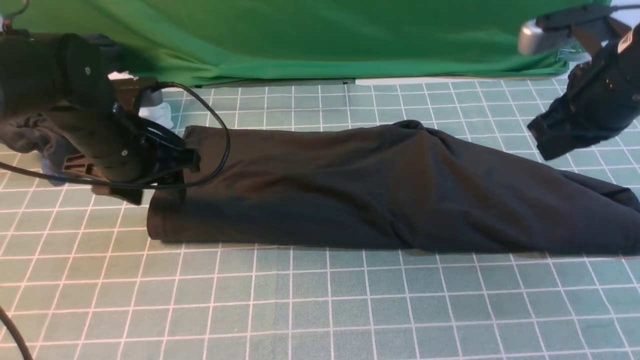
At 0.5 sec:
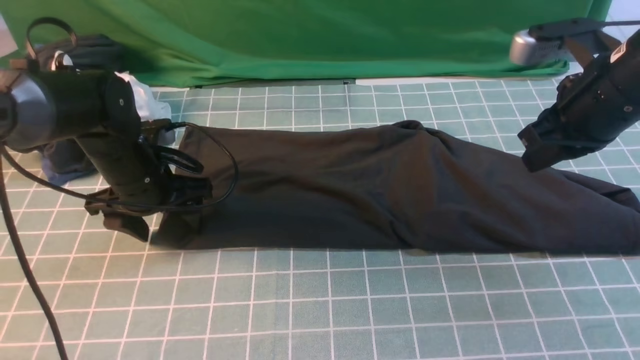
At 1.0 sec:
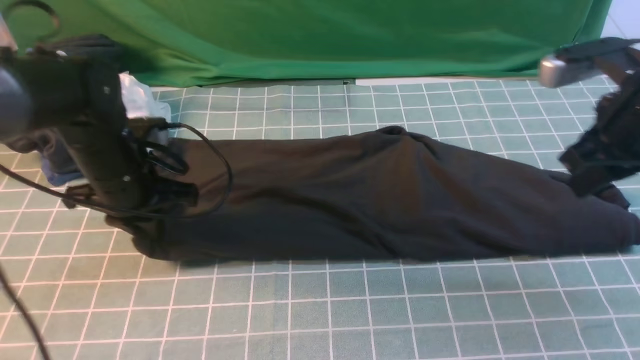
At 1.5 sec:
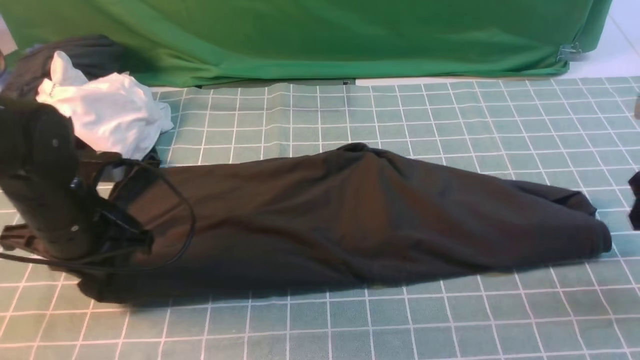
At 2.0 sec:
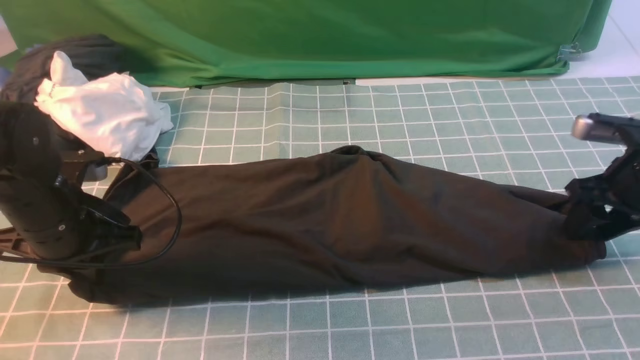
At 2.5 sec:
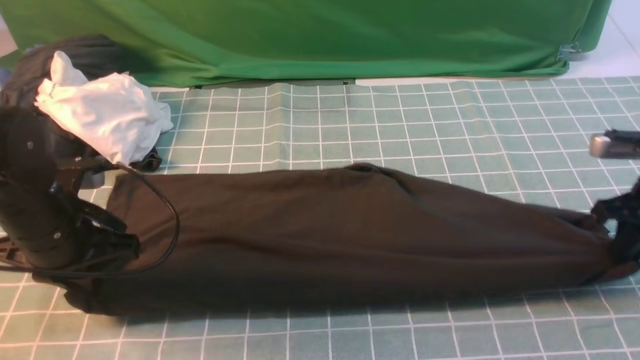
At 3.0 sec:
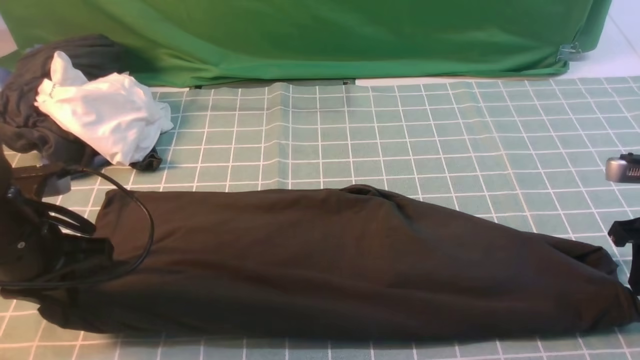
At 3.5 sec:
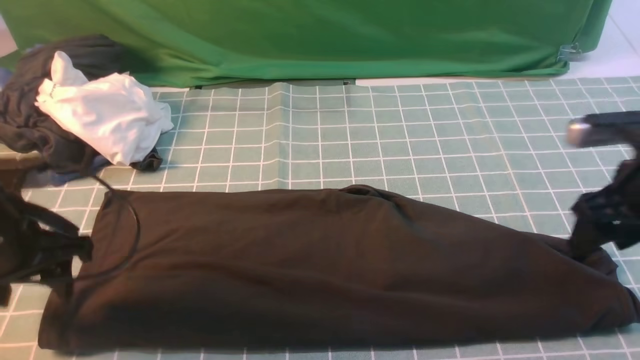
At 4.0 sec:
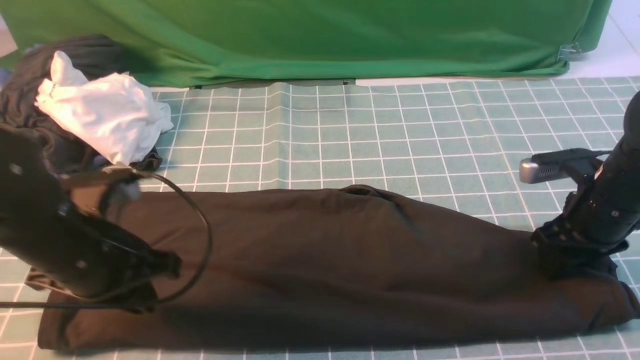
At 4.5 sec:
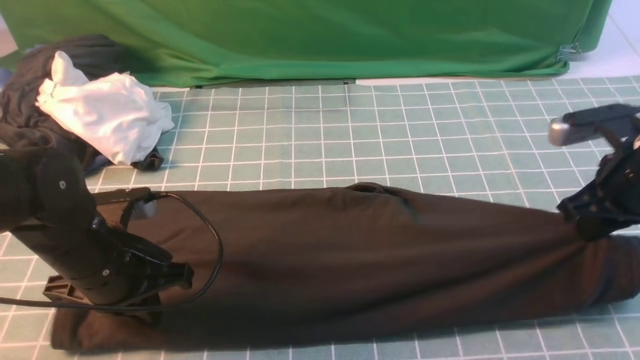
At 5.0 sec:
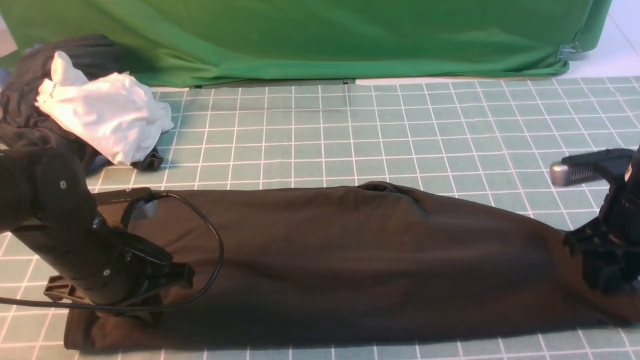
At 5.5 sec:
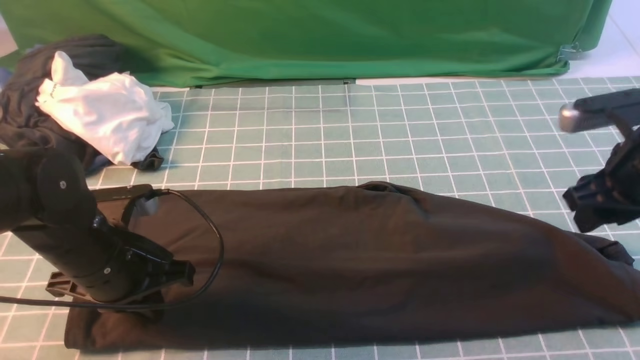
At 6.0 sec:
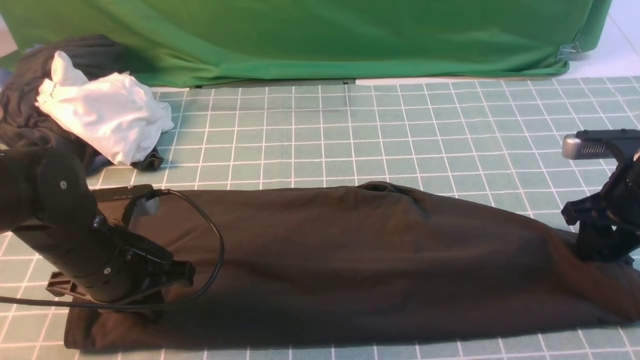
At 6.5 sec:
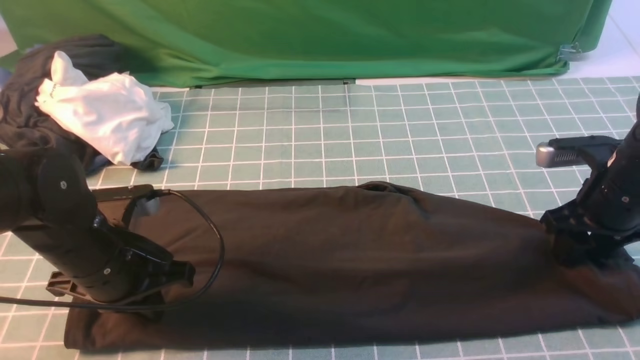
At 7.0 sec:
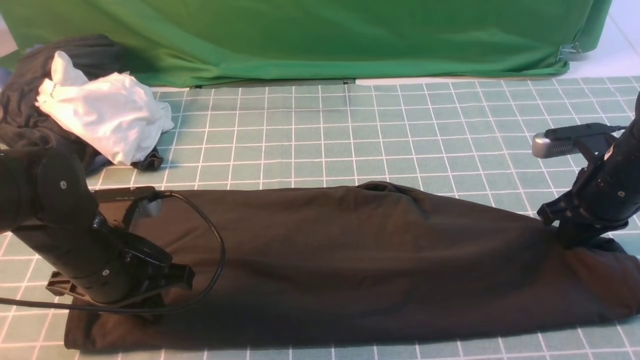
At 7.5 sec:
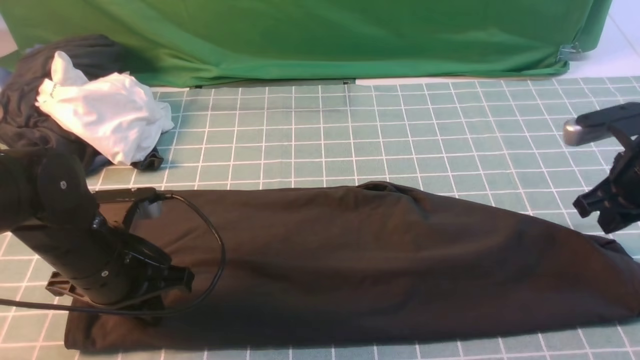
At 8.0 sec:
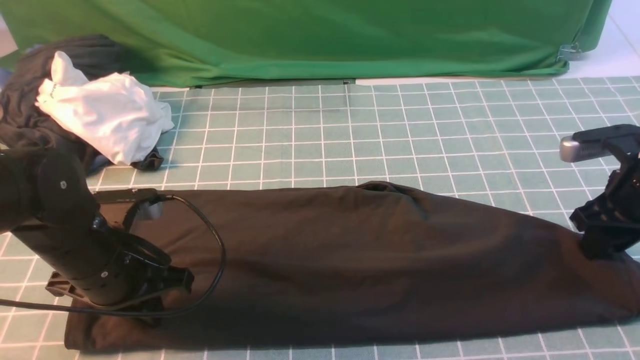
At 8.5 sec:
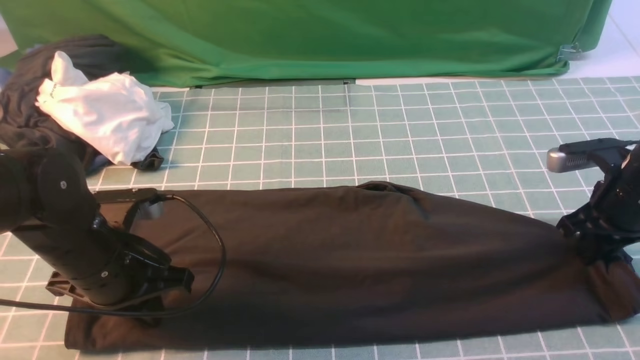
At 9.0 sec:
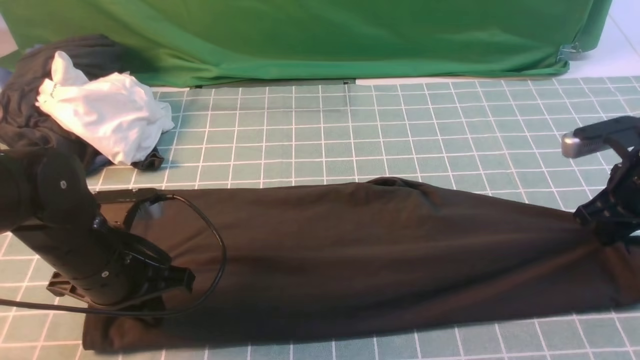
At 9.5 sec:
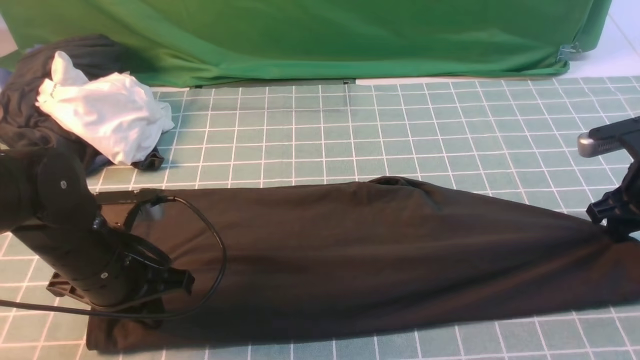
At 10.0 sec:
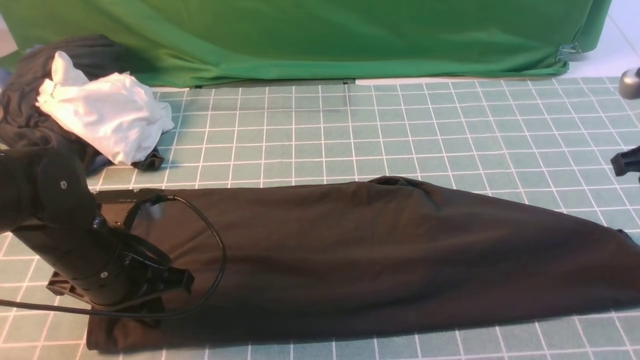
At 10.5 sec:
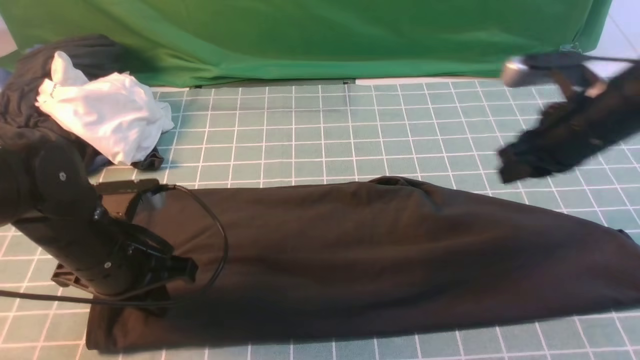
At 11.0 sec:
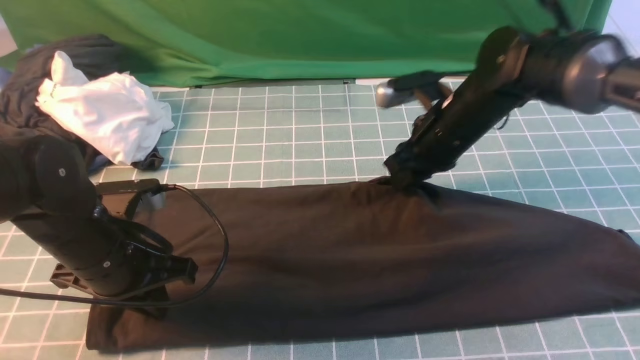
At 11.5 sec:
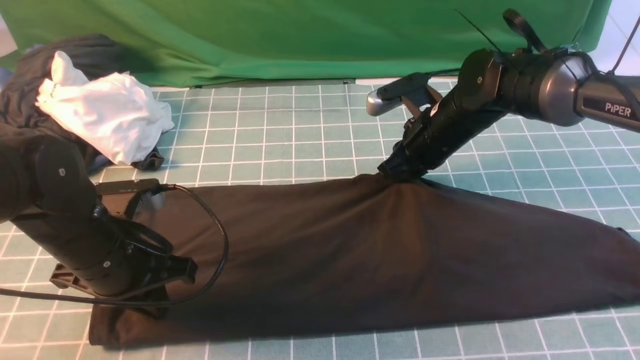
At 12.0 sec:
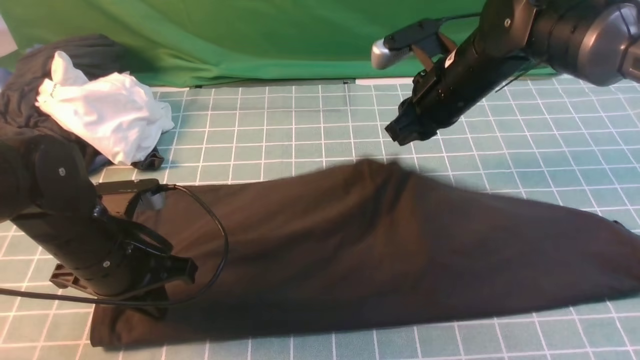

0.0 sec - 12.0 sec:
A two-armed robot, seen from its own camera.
0.0 sec - 2.0 sec: The left gripper is displaced backward by some 10 cm, and closes up. Meanwhile the right gripper travels downward and to the right by about 15 cm, and opens up.
2.0 sec - 4.0 sec: The left gripper changes place by some 5 cm, and opens and closes again. Meanwhile the right gripper is displaced to the left by some 5 cm, and closes and opens again.
4.0 sec - 6.0 sec: The right gripper closes, then opens again.
6.0 sec - 8.0 sec: The right gripper closes and opens again.
8.0 sec - 10.0 sec: The right gripper goes approximately 5 cm upward, and closes.
10.0 sec - 12.0 sec: The right gripper travels to the left and forward by some 25 cm.

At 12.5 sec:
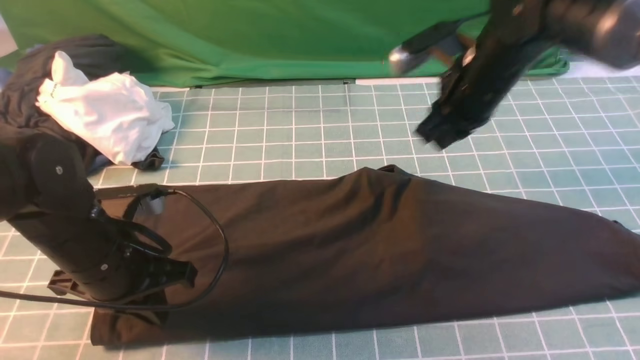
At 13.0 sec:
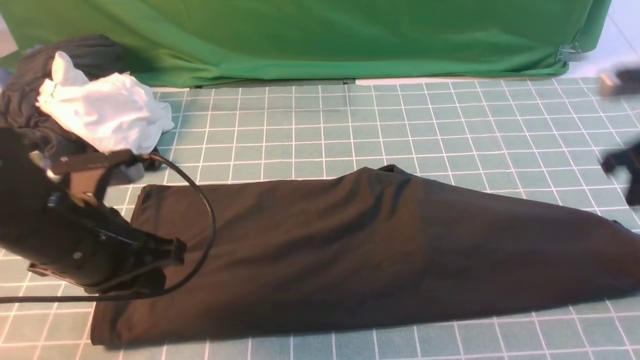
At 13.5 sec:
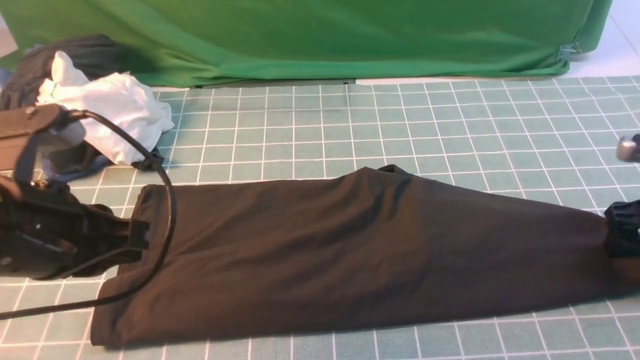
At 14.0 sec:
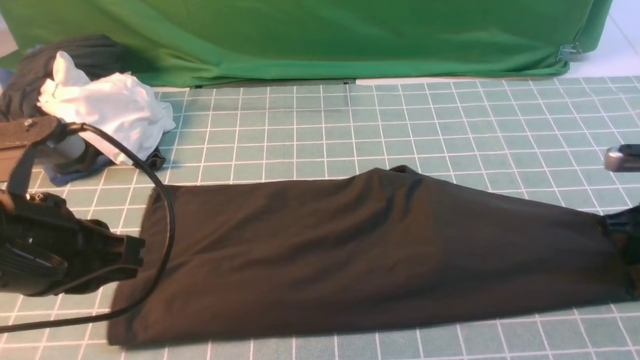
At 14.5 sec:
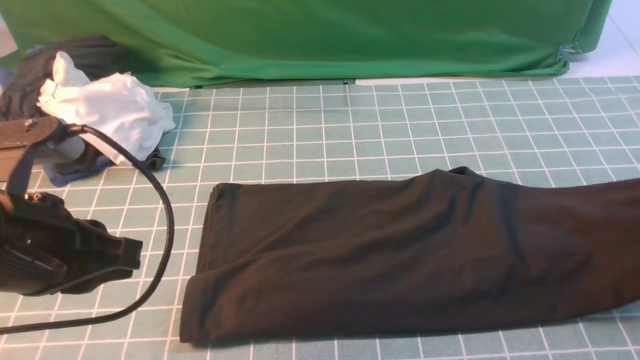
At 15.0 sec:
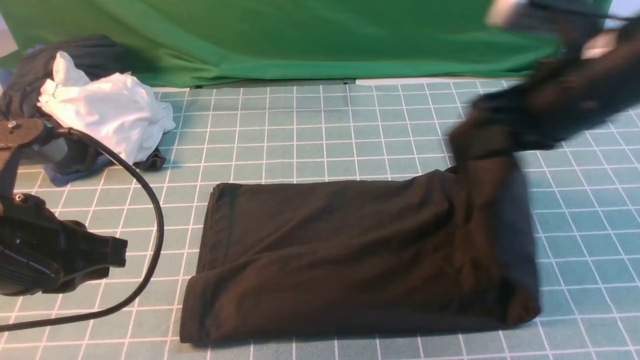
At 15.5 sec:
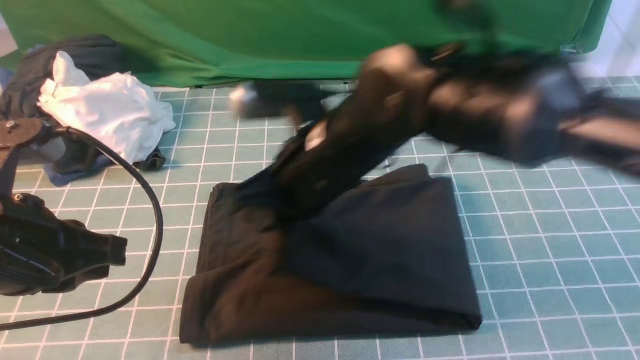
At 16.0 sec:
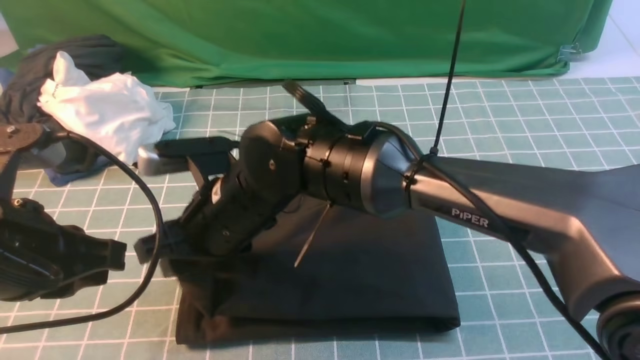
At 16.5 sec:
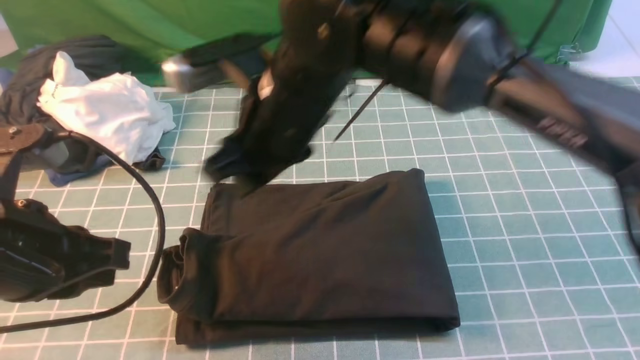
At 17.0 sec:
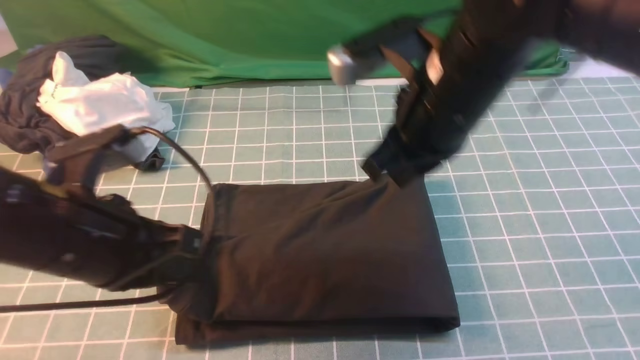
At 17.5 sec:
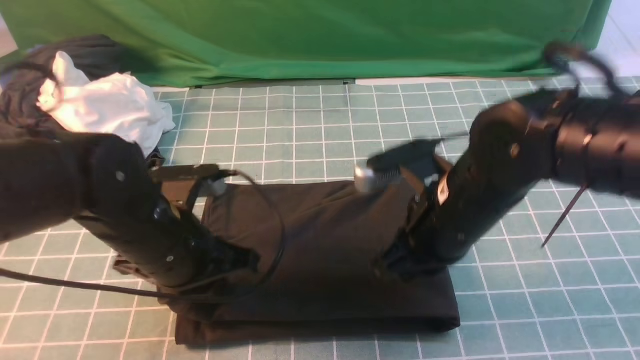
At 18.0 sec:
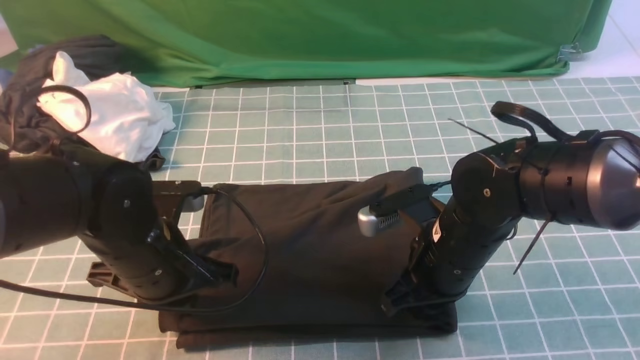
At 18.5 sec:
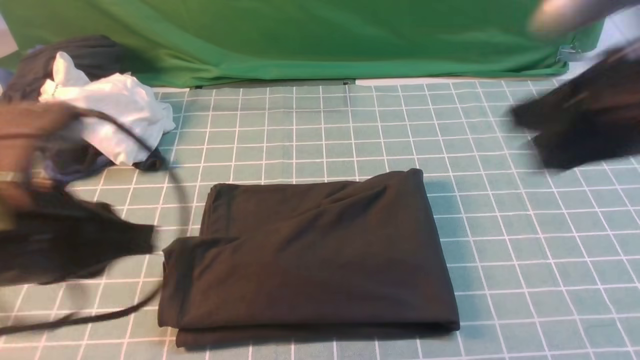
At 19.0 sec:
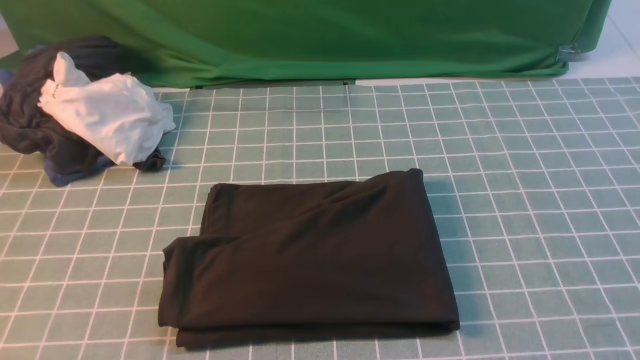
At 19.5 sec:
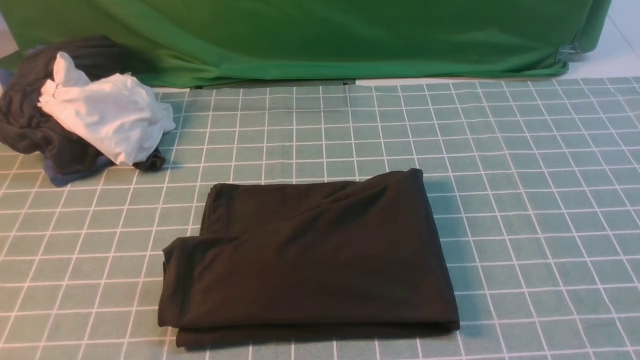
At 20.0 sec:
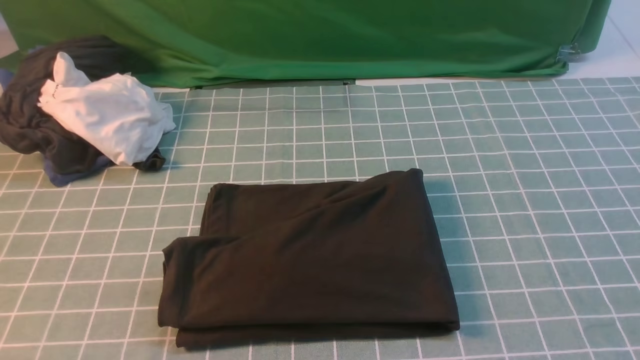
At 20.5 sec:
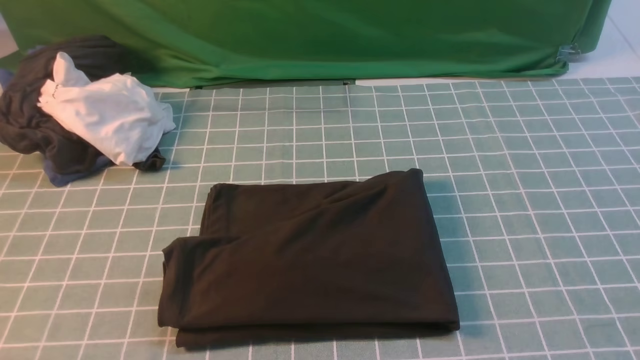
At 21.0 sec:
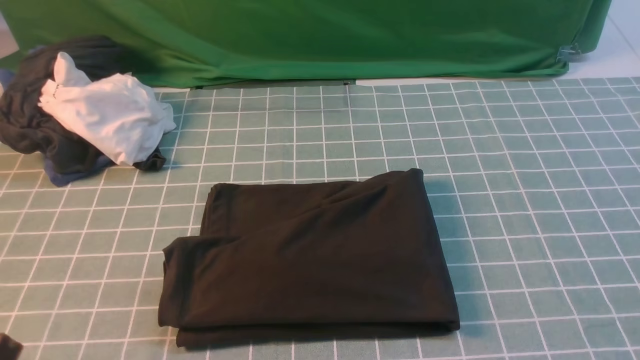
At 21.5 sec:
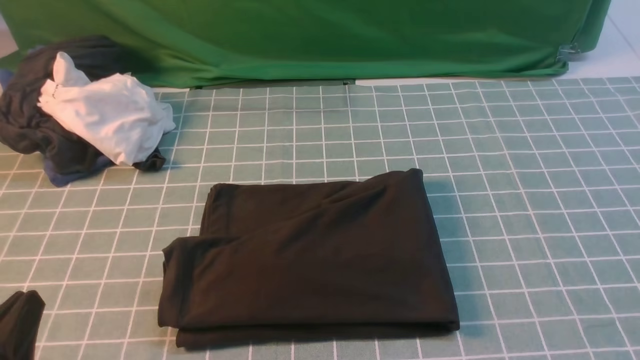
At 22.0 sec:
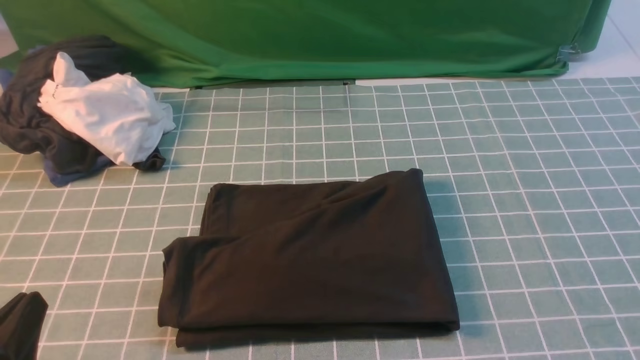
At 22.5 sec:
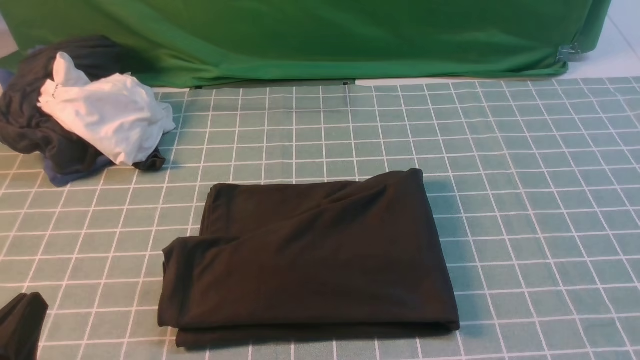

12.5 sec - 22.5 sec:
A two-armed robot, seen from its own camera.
Step, 14.5 sec - 16.0 sec: use the right arm to drag the right edge of the fabric to the left and folds it over the left edge.
12.5 sec - 14.5 sec: The left gripper travels upward and backward by approximately 15 cm. The right gripper goes roughly 20 cm to the right and backward, and opens and closes again.
14.5 sec - 16.5 sec: The right gripper shifts about 40 cm to the left, and opens up.
16.5 sec - 18.5 sec: The left gripper reaches about 10 cm downward, then returns; the right gripper shifts roughly 25 cm to the right and backward, and closes.
18.5 sec - 20.5 sec: The right gripper goes about 20 cm backward and to the right, while the left gripper shifts approximately 15 cm backward.
20.5 sec - 22.5 sec: The left gripper moves downward, approximately 15 cm.
